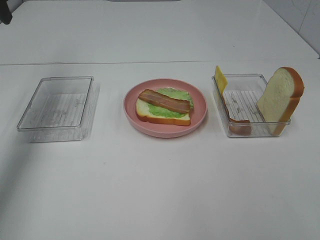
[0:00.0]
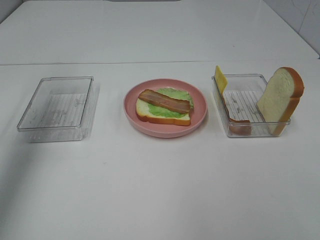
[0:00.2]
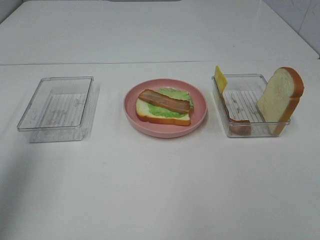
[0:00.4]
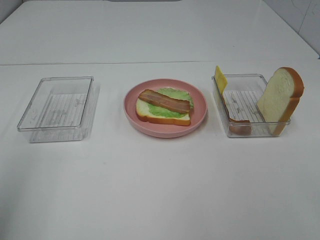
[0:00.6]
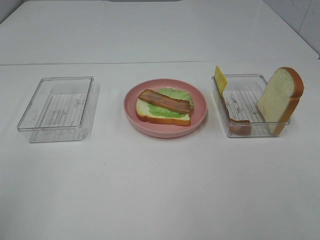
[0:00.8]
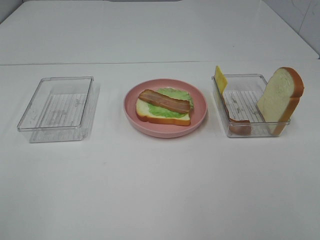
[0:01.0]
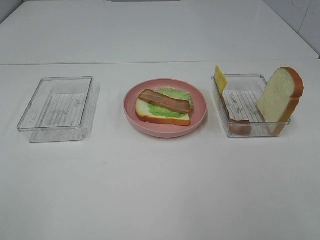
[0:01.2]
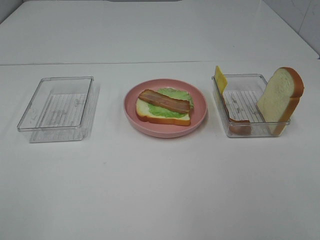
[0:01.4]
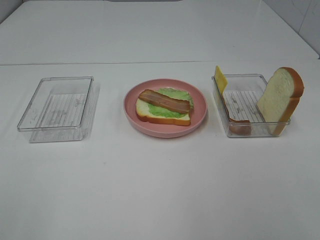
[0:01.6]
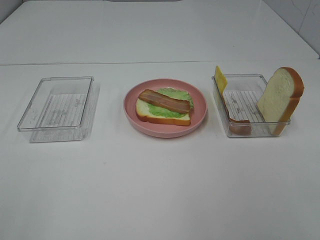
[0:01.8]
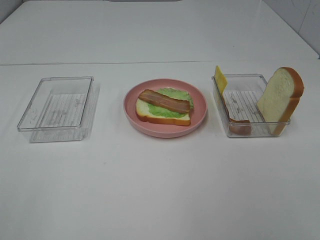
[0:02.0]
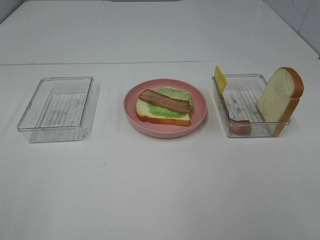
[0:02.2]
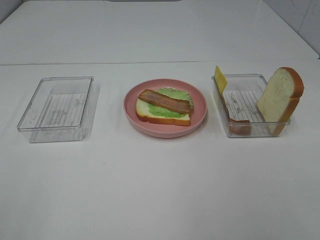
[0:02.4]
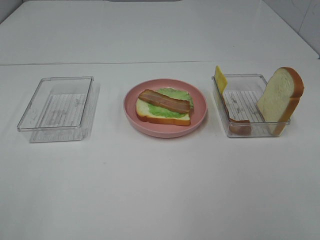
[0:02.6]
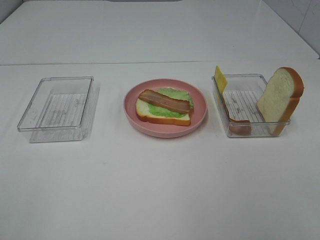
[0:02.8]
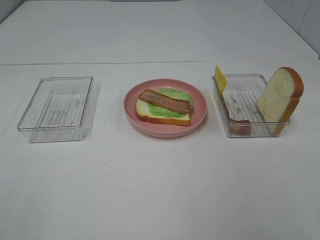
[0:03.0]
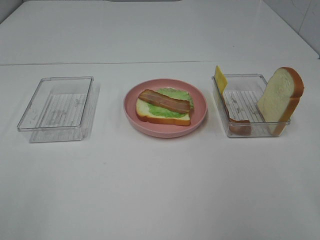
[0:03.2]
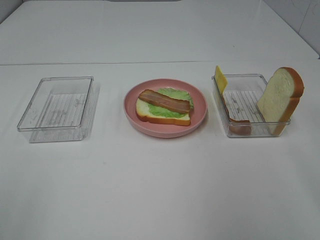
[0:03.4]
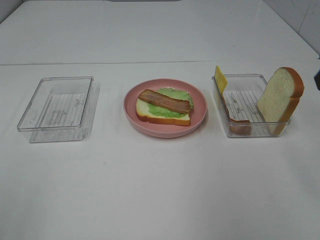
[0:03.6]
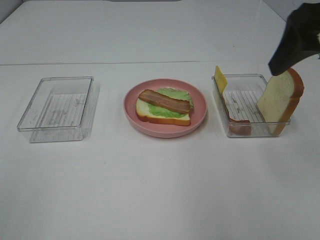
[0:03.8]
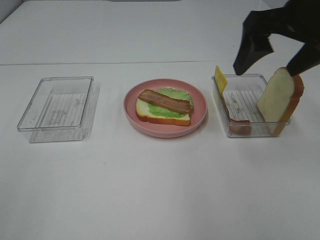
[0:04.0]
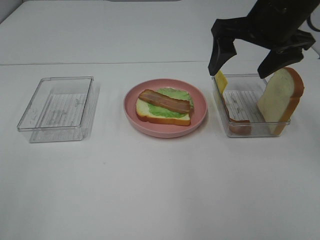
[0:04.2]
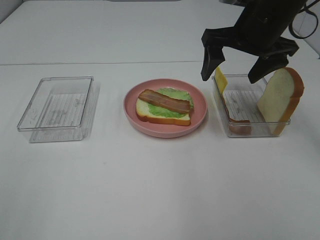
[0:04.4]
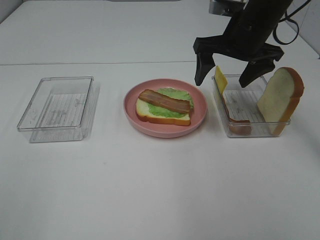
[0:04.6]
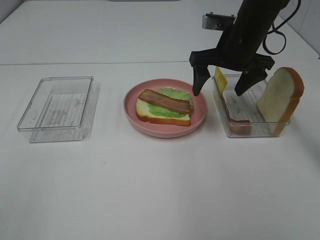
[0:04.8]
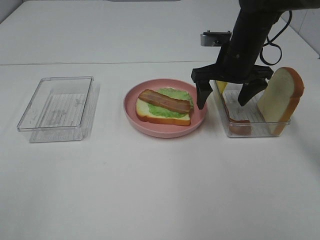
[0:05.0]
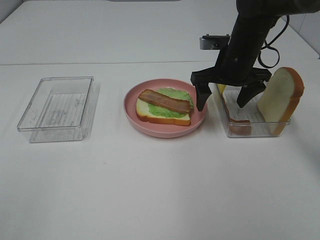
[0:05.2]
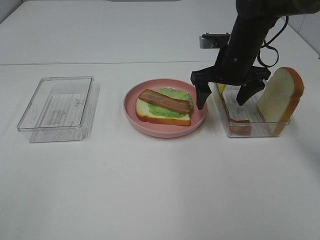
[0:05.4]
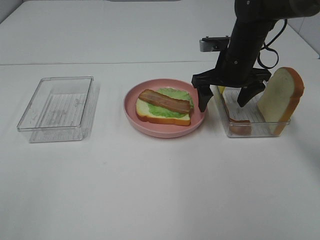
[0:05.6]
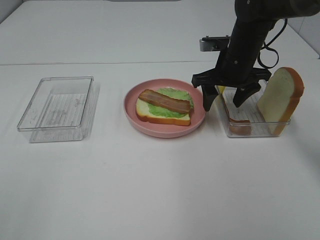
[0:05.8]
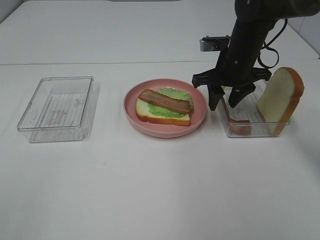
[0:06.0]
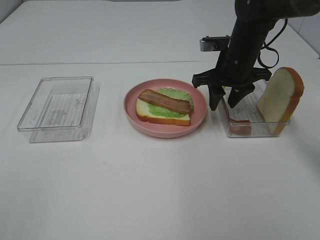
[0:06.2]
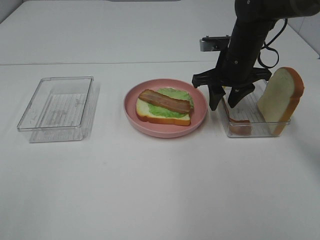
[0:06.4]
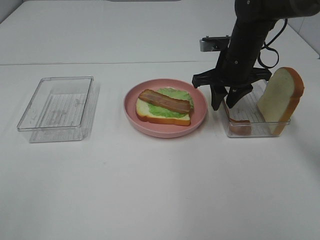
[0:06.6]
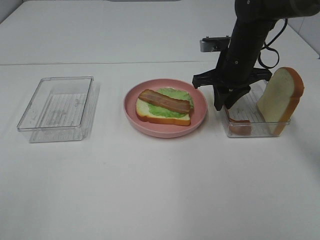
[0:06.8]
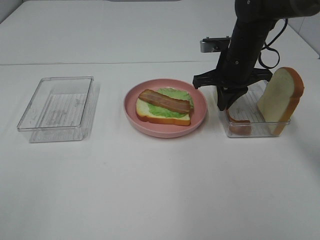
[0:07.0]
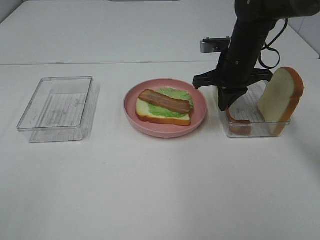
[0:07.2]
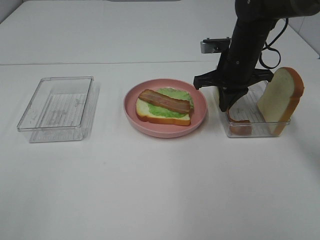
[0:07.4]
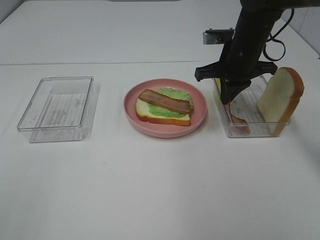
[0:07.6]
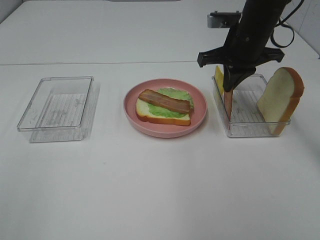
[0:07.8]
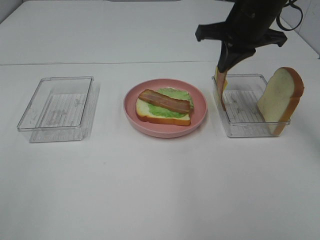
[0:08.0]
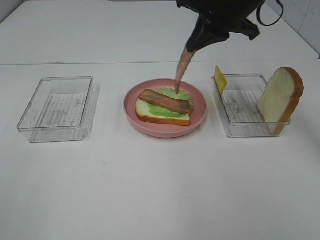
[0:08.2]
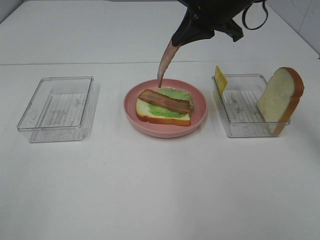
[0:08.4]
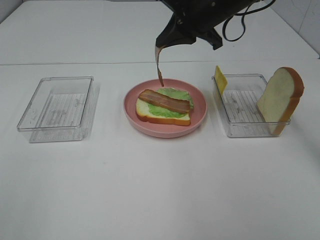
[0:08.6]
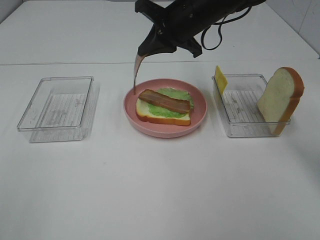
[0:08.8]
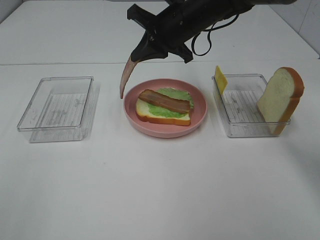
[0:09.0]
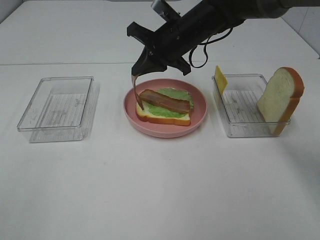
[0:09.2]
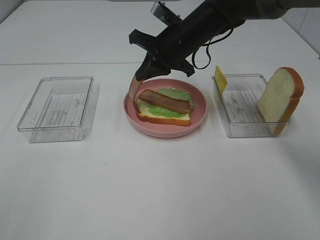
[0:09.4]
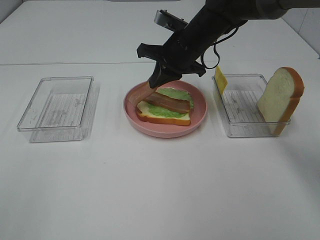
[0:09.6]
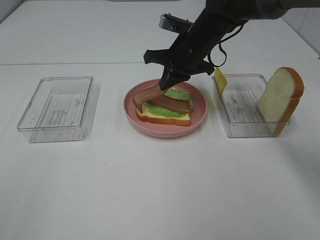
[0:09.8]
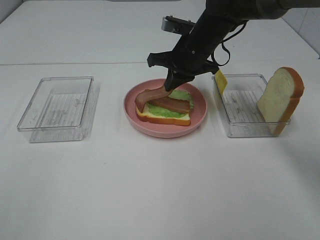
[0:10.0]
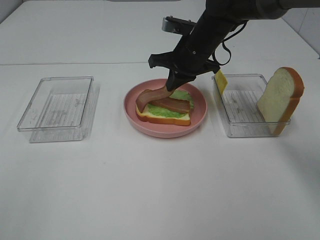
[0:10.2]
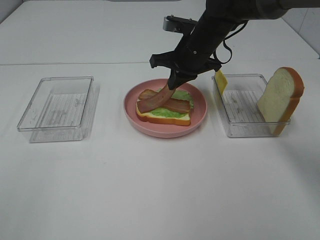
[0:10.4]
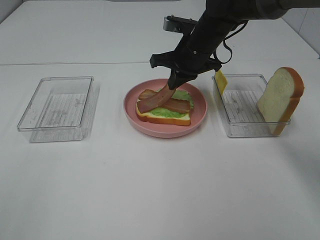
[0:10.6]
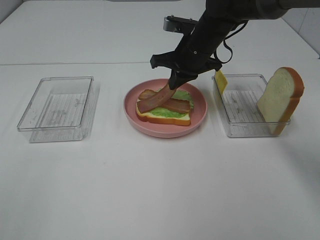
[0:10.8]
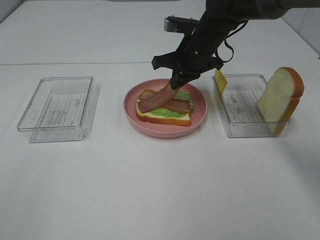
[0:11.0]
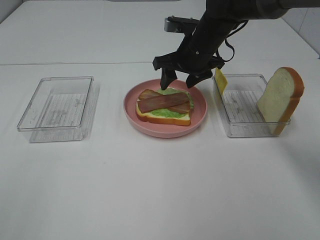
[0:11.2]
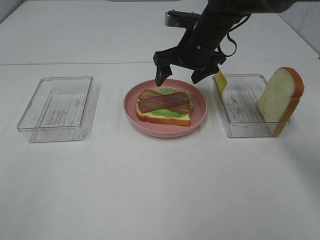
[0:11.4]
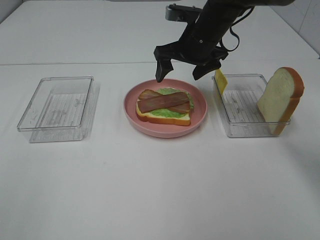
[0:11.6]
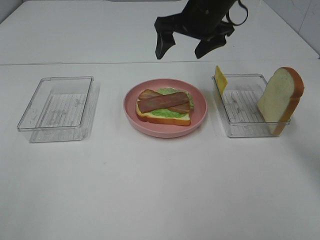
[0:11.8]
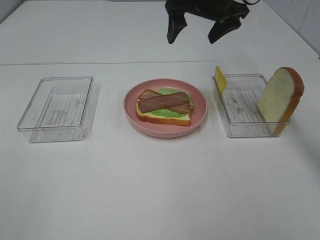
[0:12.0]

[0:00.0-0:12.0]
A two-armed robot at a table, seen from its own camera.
Task of the whole recording: Make sandwiches.
Step, 0:00.0 to 0:07.6: Right hand:grab the bacon.
Step, 0:07.8 to 0:11.8: Right hand:place bacon on bacon.
0:00.0 to 0:01.6: The left gripper shifts about 40 cm backward.
0:03.0 to 0:04.4: The right gripper shifts roughly 30 cm forward and to the left.
0:04.4 to 0:06.0: The right gripper goes approximately 10 cm downward and forward, and closes up.
0:06.0 to 0:07.6: The right gripper closes its fingers.
0:07.6 to 0:09.0: The right gripper moves to the left, some 10 cm.
0:09.0 to 0:10.4: The right gripper moves some 5 cm.
0:10.4 to 0:12.0: The right gripper is displaced upward by approximately 10 cm, and opens up.

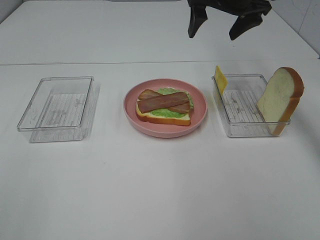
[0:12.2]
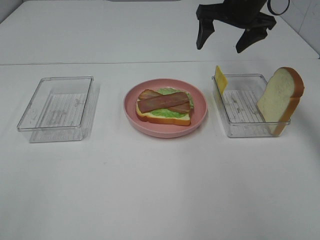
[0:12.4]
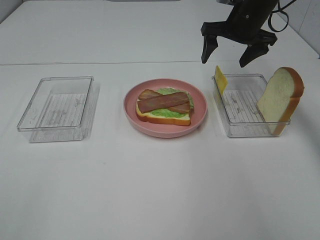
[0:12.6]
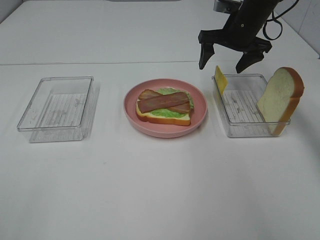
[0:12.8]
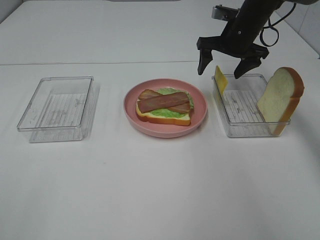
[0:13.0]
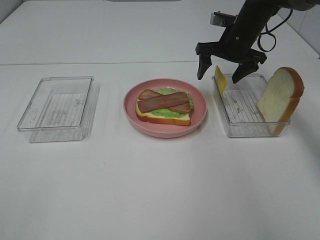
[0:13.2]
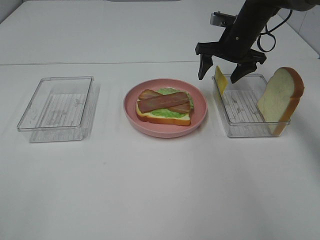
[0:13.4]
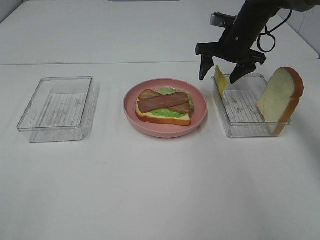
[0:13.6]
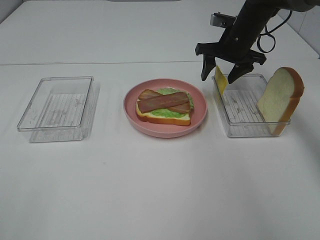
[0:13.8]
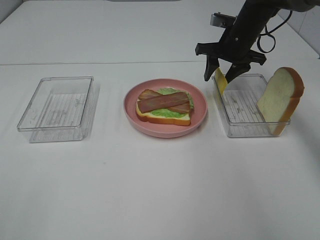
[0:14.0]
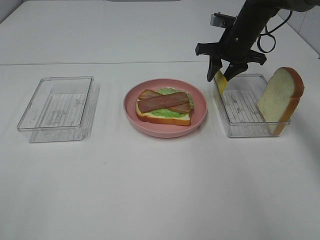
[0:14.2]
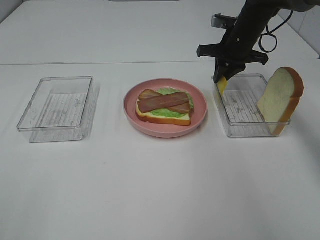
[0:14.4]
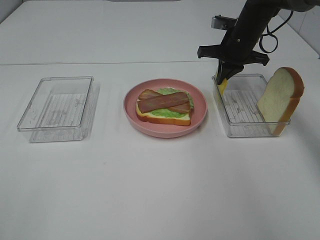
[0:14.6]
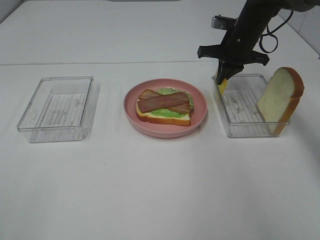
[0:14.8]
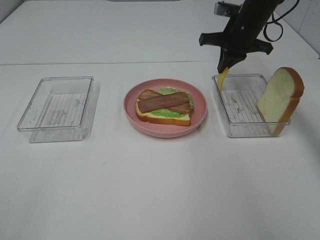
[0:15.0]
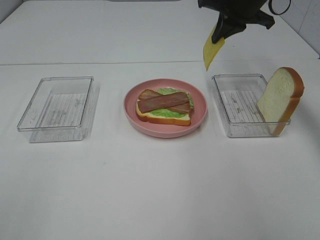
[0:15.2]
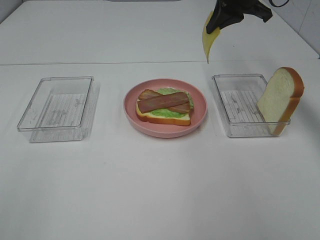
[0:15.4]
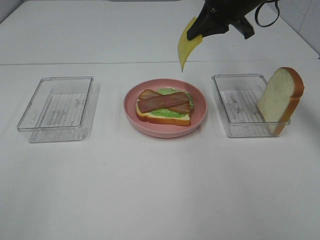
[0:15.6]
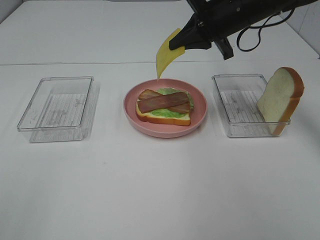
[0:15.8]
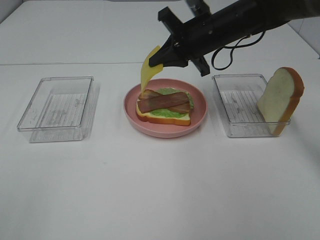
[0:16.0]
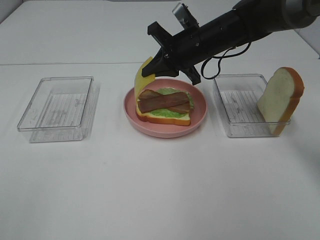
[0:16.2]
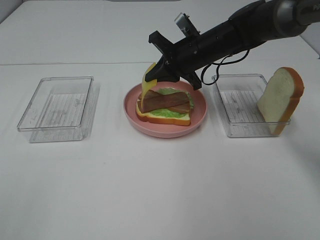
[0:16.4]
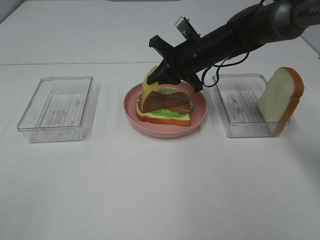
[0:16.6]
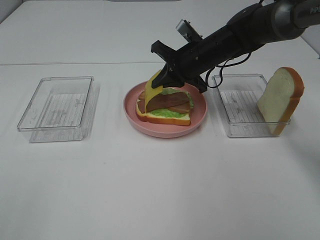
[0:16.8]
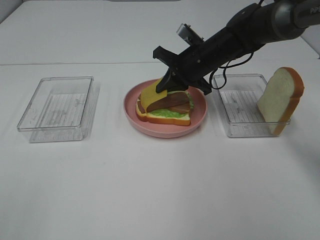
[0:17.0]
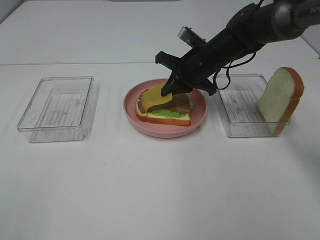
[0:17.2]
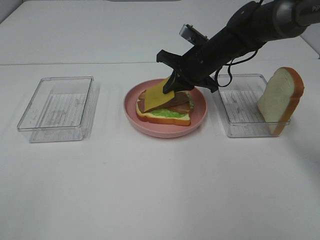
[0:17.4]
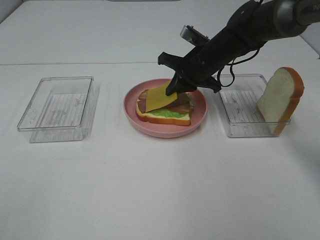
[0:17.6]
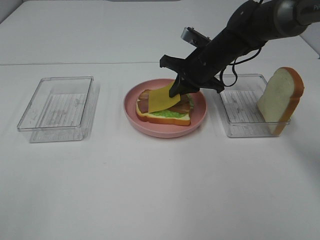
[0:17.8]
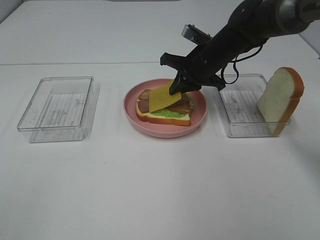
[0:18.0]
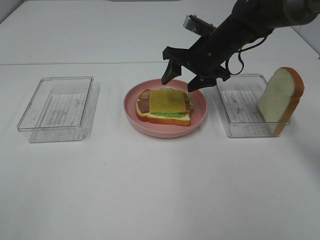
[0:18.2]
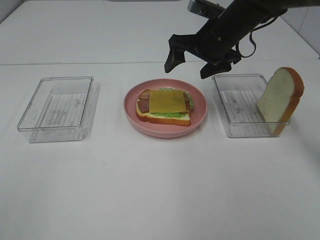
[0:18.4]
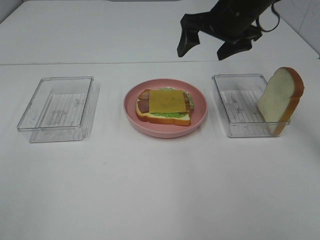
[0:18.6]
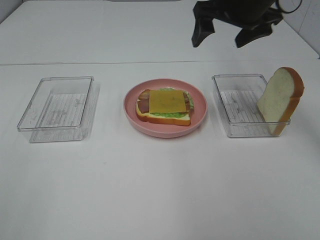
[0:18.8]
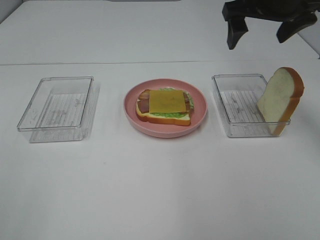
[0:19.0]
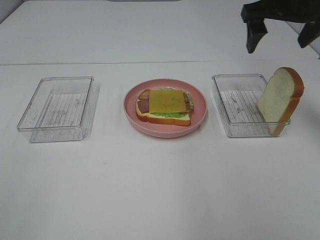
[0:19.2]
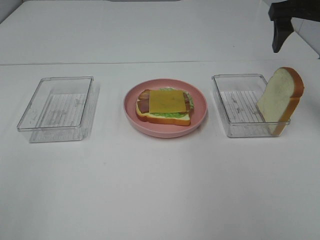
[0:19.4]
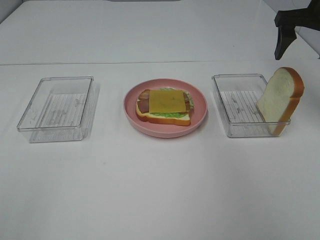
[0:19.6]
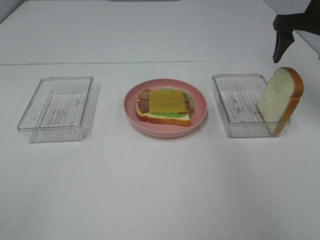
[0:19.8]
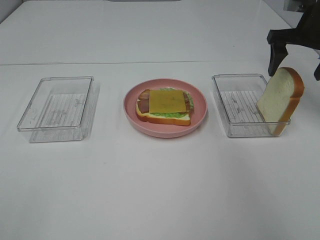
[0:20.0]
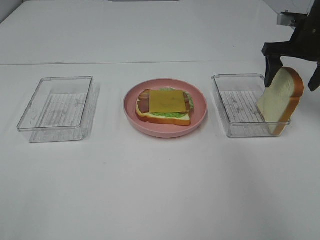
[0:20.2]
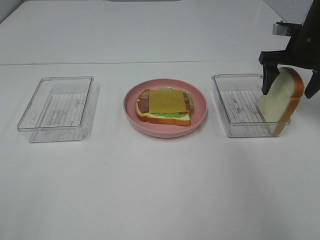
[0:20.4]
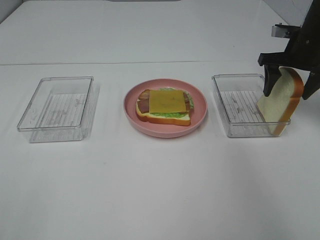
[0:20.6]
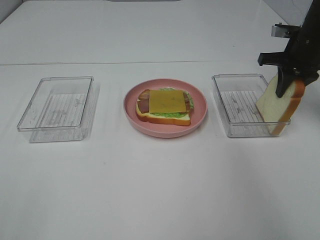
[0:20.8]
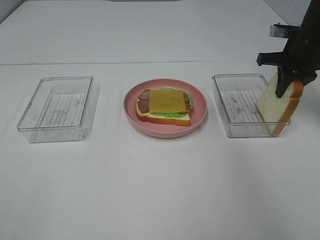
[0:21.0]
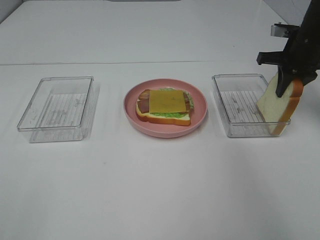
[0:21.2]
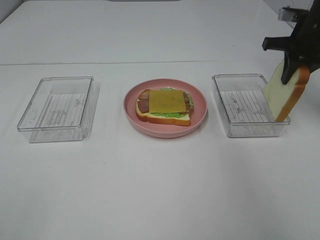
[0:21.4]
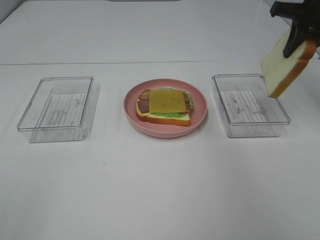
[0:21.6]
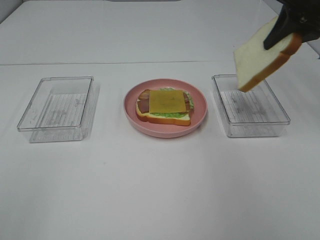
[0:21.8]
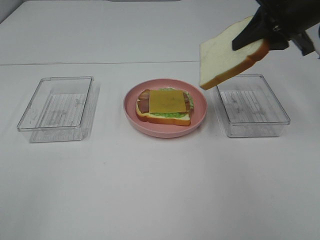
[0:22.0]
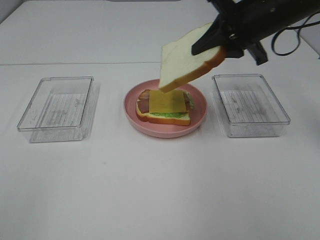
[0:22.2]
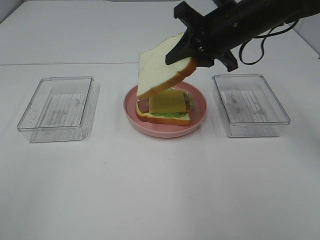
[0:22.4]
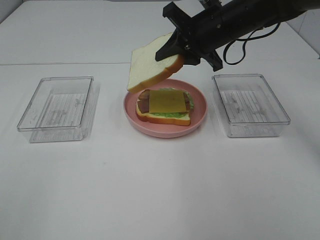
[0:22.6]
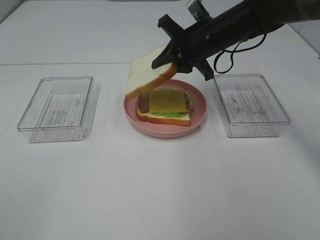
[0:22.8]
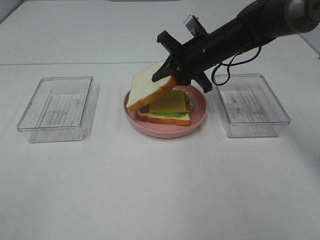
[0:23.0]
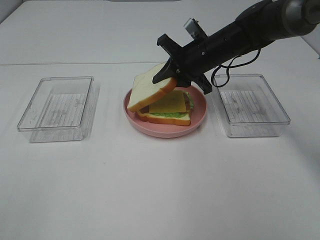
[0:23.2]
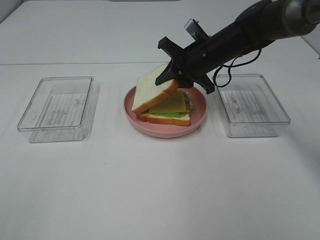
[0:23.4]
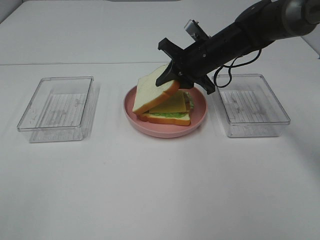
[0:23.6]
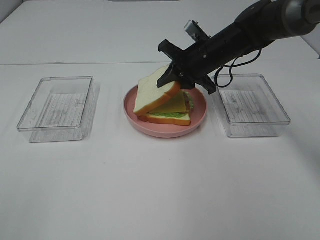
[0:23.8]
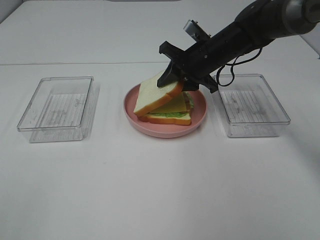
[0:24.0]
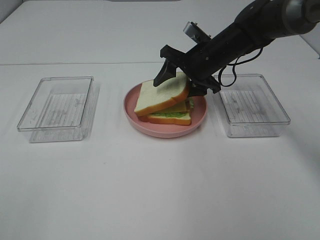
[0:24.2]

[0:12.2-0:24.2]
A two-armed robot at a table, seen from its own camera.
Task of the whole recording: Make sandwiches.
Step, 0:12.2 to 0:14.8: Right hand:grab the cheese slice.
Step, 0:15.0 to 0:18.2: Right hand:place the cheese slice on top of the bacon.
Step, 0:18.4 to 0:20.8: Right hand:grab the bread slice.
0:12.2 to 0:13.8: The right gripper heads downward, covering approximately 10 cm.
0:13.8 to 0:15.2: The right gripper is displaced upward by some 10 cm, and closes its fingers.
0:15.2 to 0:16.6: The right gripper moves downward and to the left, approximately 15 cm.
0:16.6 to 0:18.2: The right gripper opens its fingers.
0:18.2 to 0:19.8: The right gripper moves to the right and upward, about 20 cm.
0:19.8 to 0:21.2: The right gripper travels downward by roughly 5 cm, and closes its fingers.
0:21.2 to 0:22.6: The right gripper moves to the left, about 20 cm.
0:22.6 to 0:24.2: The right gripper travels downward by roughly 5 cm, and opens.
